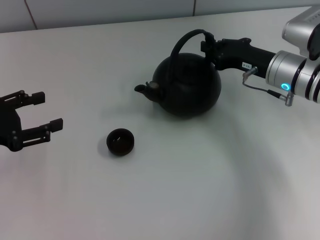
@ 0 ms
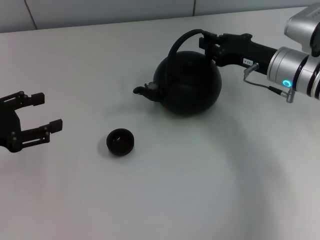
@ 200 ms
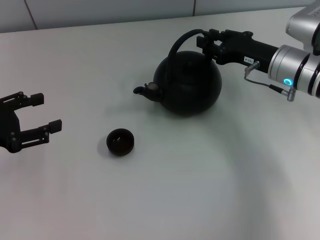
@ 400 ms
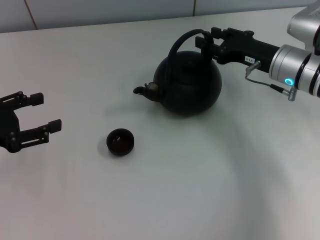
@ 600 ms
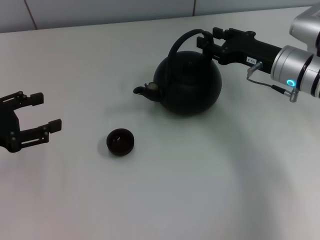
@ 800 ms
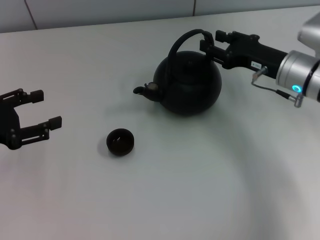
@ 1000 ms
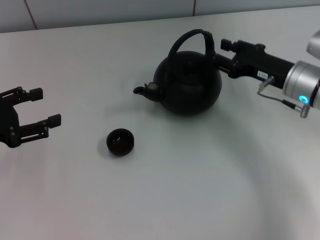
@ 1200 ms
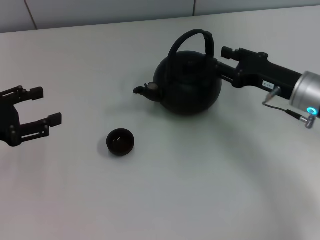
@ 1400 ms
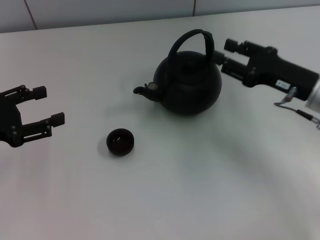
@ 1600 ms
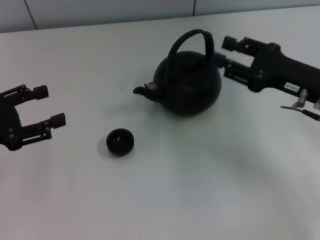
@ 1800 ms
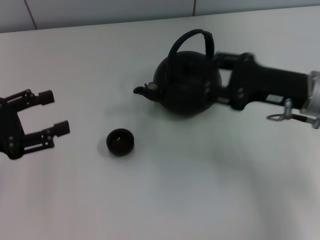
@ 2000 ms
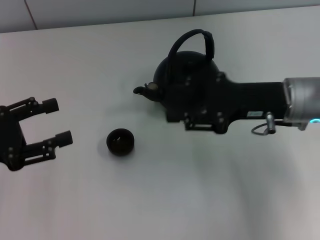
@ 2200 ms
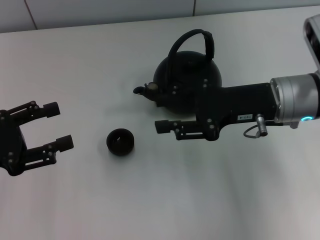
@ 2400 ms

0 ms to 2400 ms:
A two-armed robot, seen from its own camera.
Task of the whole recording: Grasp the handle of the teapot with one hand and pour tea into the teacup.
0 ms to 1200 ms: The right gripper opens.
1200 ms to 2400 ms: The right gripper goes some 5 cm upward.
